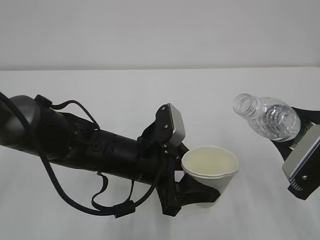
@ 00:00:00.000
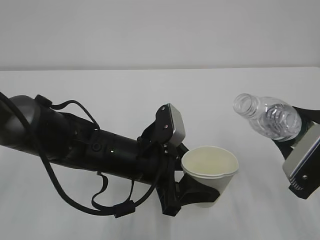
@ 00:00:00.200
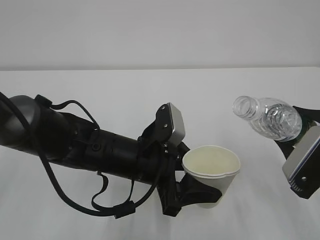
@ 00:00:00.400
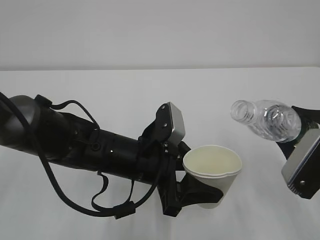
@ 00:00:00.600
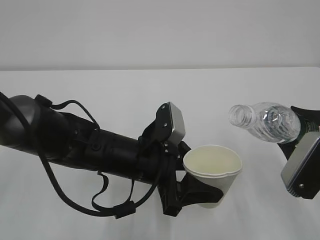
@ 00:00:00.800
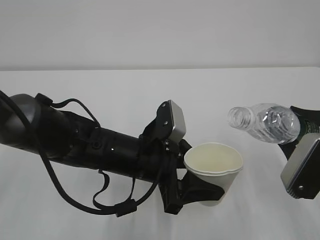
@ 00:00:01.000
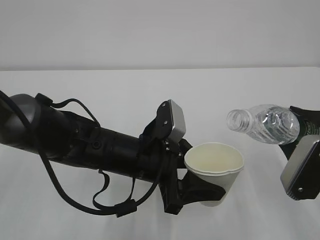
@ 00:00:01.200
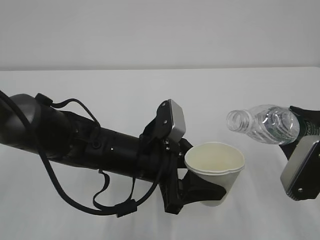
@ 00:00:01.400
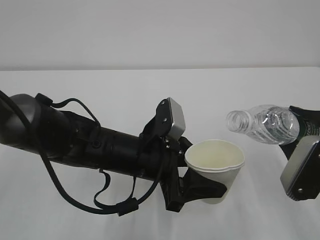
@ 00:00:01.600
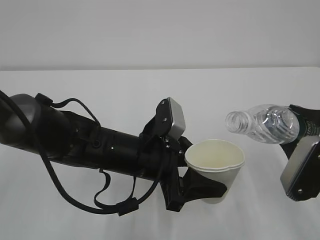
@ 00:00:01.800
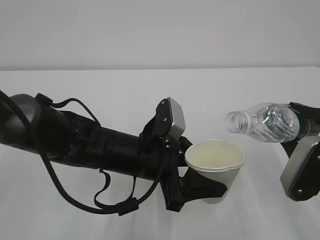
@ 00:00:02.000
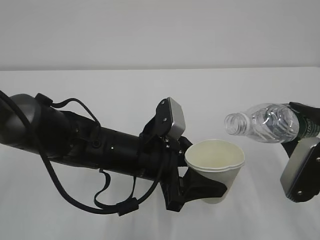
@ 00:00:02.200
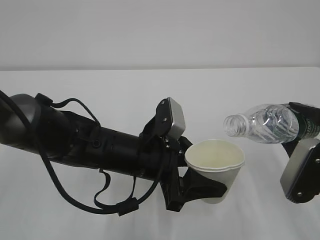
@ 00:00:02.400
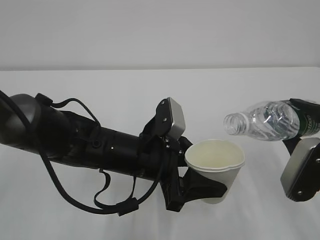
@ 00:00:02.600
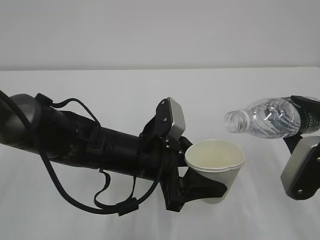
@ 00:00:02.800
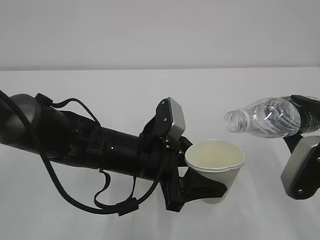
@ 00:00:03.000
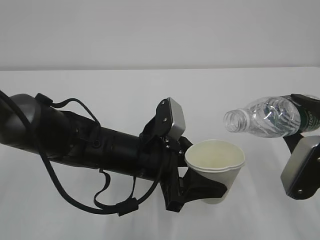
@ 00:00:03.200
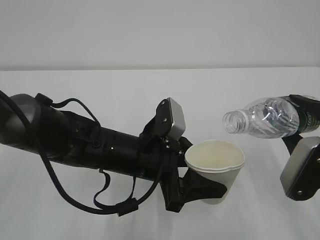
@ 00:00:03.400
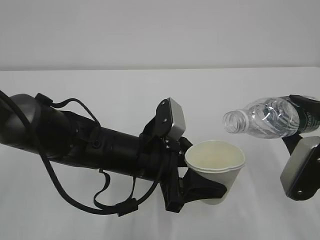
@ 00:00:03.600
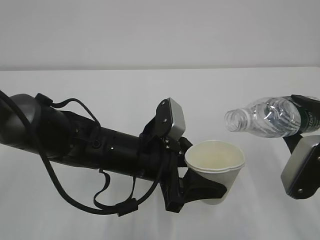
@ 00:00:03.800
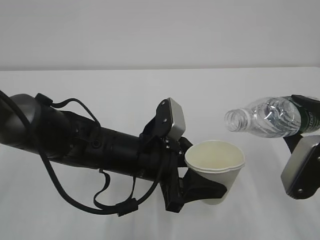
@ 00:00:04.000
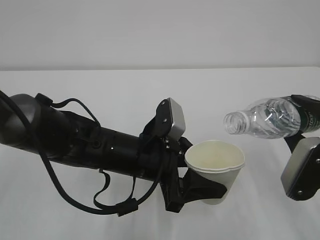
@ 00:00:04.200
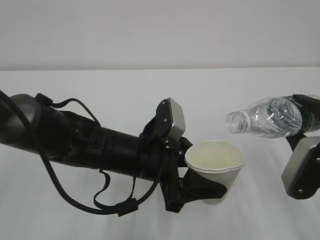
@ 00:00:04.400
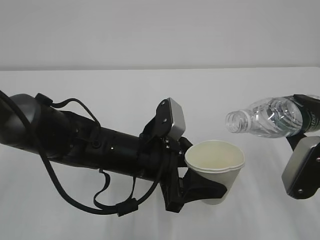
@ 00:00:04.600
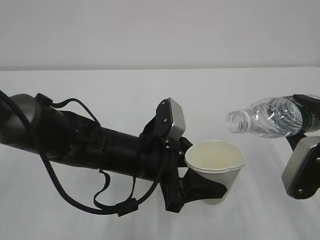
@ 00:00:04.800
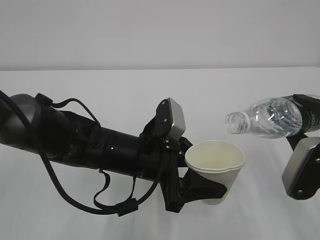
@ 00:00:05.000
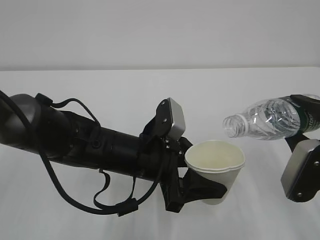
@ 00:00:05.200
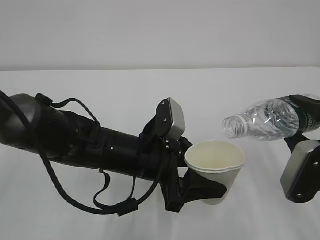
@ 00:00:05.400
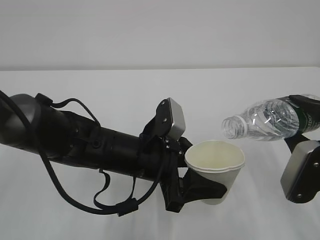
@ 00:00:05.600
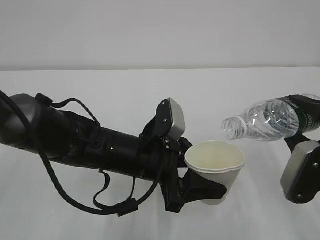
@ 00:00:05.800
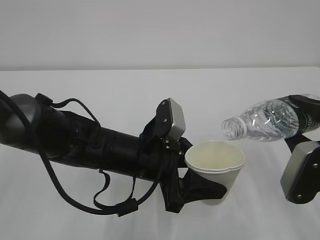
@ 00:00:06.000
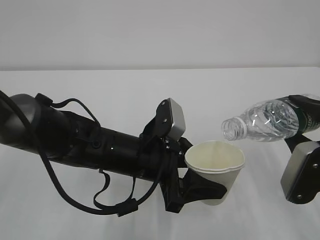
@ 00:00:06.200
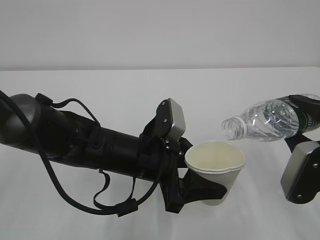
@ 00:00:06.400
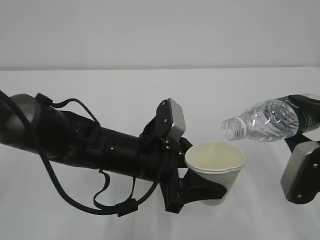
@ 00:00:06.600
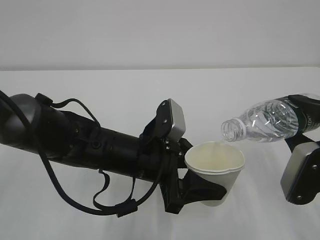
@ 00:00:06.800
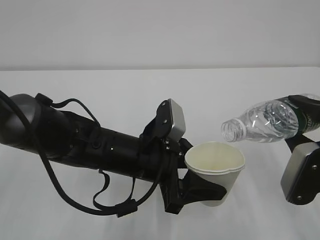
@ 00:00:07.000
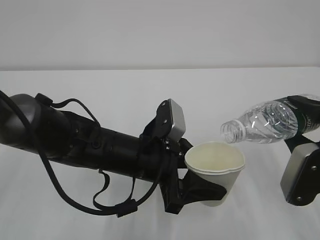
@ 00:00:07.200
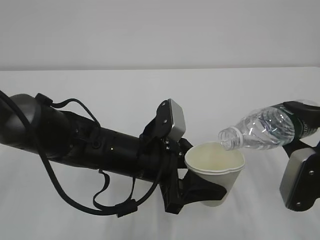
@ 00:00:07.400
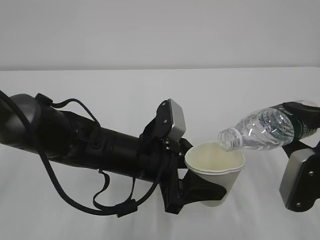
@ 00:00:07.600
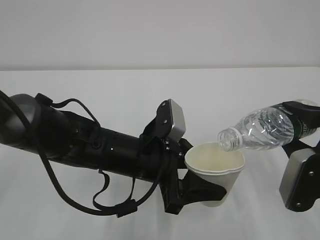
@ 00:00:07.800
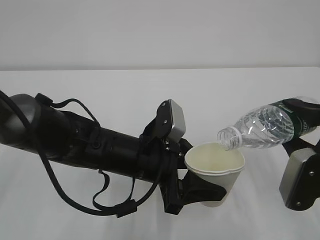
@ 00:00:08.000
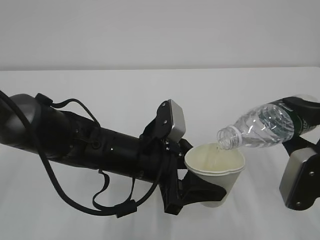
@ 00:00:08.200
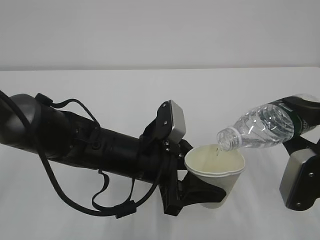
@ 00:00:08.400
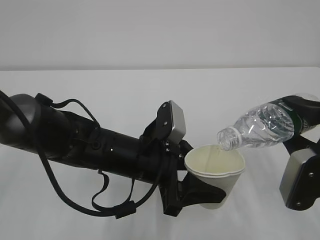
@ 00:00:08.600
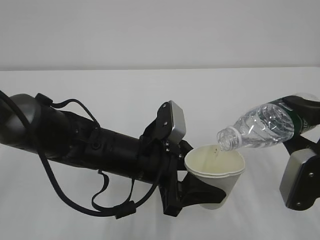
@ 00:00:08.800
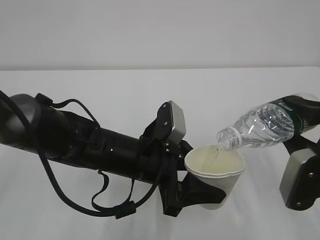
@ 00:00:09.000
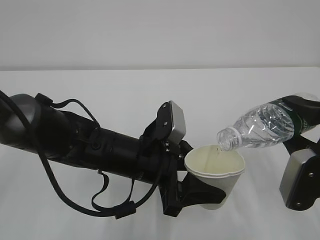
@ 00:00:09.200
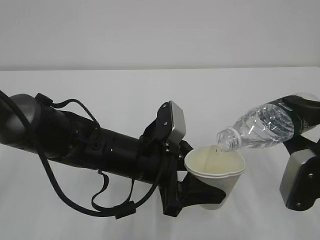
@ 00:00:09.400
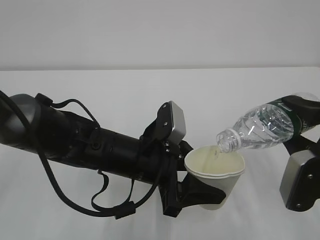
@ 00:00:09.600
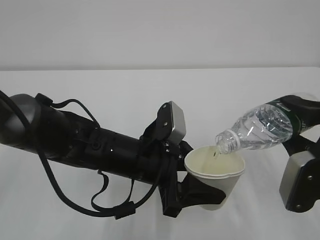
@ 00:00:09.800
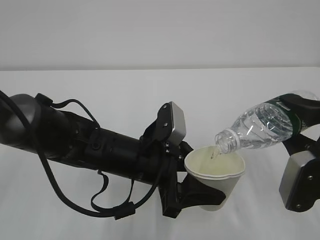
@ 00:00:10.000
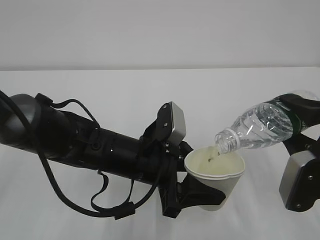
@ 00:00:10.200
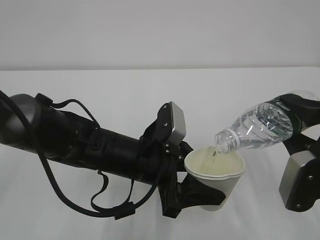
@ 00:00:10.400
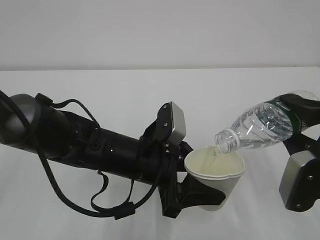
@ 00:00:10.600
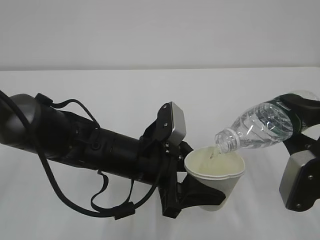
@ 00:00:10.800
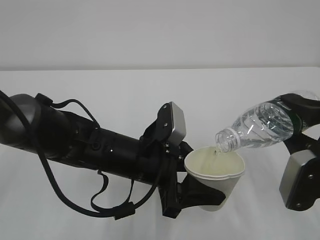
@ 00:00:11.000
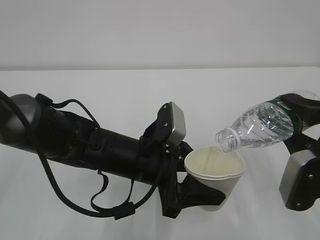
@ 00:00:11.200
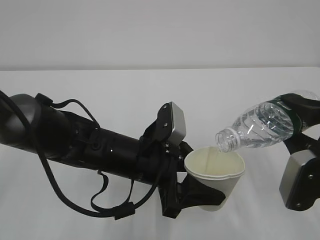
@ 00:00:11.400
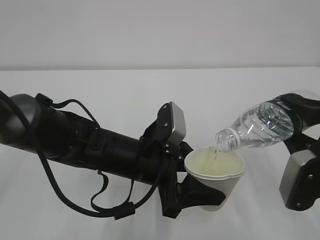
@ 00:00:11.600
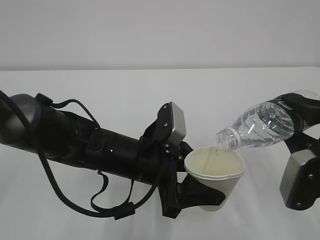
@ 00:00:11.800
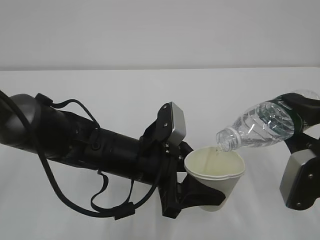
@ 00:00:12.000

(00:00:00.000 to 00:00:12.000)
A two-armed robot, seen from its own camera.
00:00:00.000 - 00:00:01.600: The grippers stay close to where they were, moving slightly.
00:00:01.600 - 00:00:03.000: The grippers make only small movements.
00:00:03.000 - 00:00:04.400: Both grippers stay put.
00:00:04.400 - 00:00:06.000: Both grippers stay put.
00:00:06.000 - 00:00:07.600: The two grippers keep their place.
00:00:07.600 - 00:00:09.000: The two grippers keep their place.
00:00:09.000 - 00:00:12.000: Neither gripper changes place.

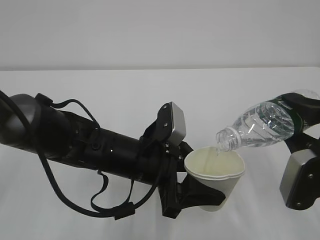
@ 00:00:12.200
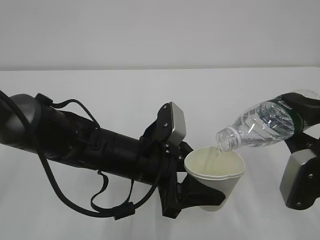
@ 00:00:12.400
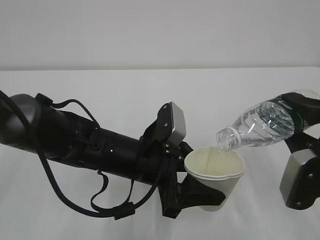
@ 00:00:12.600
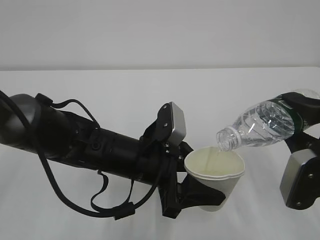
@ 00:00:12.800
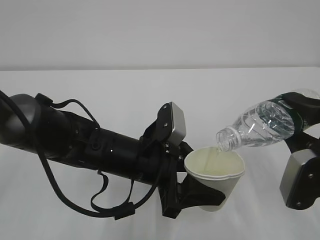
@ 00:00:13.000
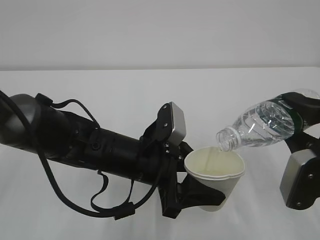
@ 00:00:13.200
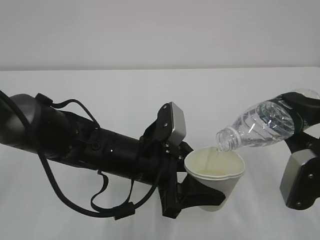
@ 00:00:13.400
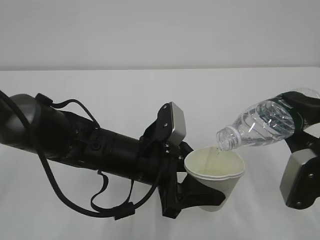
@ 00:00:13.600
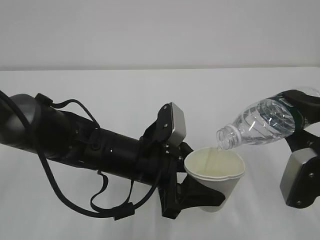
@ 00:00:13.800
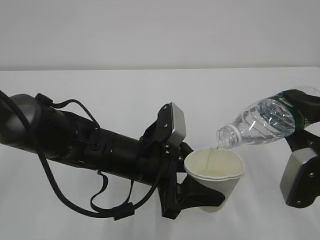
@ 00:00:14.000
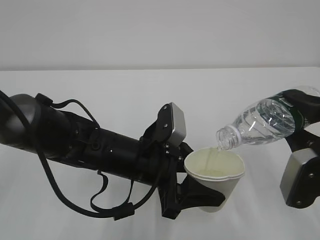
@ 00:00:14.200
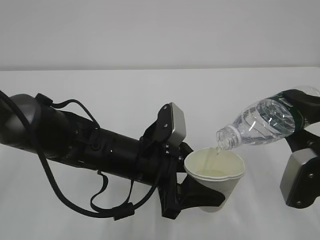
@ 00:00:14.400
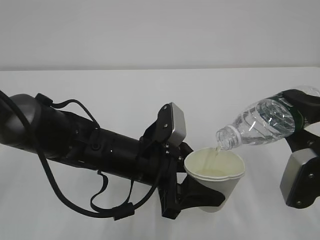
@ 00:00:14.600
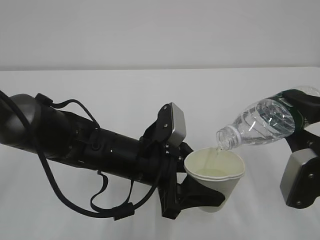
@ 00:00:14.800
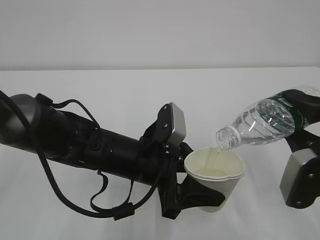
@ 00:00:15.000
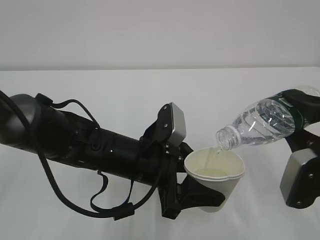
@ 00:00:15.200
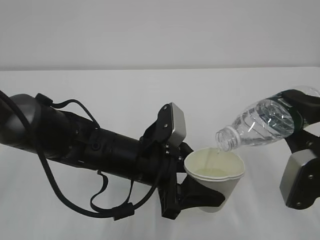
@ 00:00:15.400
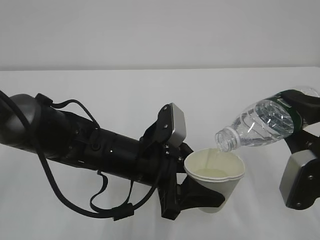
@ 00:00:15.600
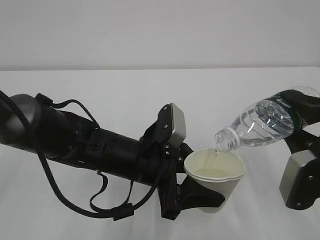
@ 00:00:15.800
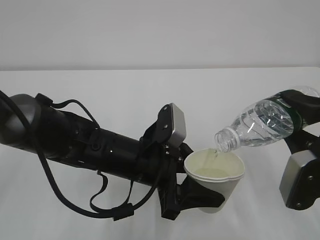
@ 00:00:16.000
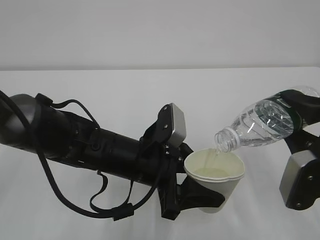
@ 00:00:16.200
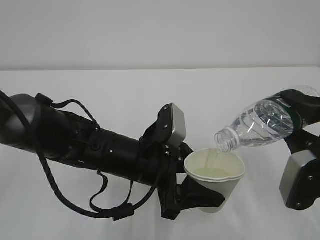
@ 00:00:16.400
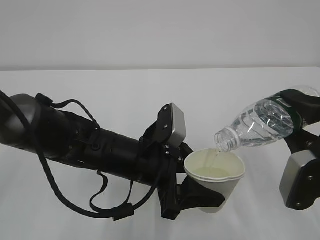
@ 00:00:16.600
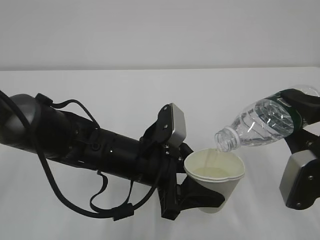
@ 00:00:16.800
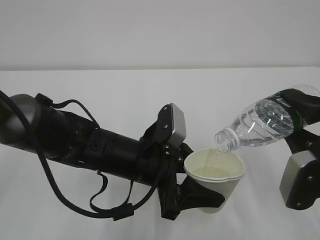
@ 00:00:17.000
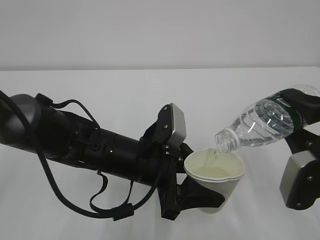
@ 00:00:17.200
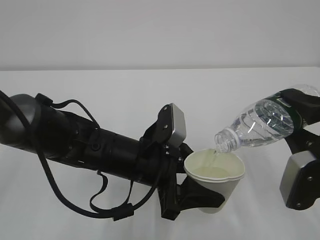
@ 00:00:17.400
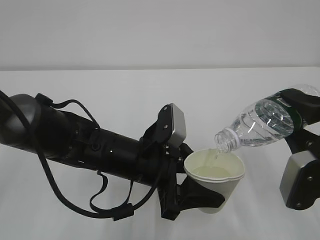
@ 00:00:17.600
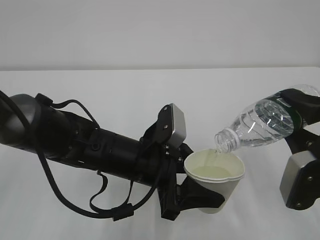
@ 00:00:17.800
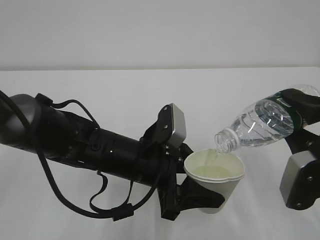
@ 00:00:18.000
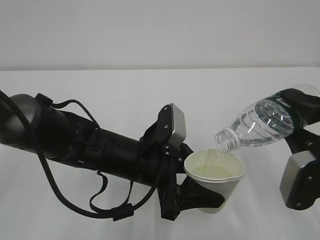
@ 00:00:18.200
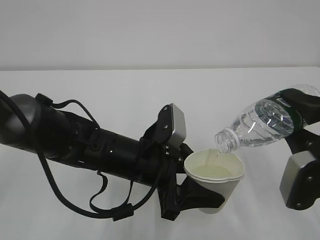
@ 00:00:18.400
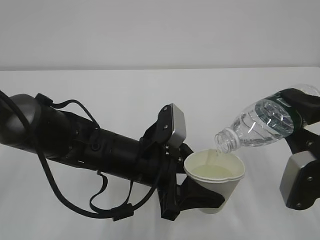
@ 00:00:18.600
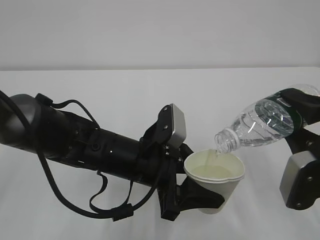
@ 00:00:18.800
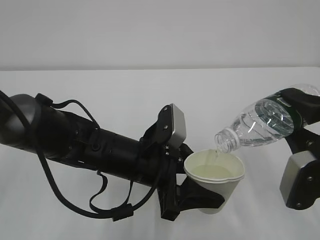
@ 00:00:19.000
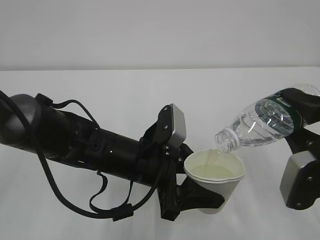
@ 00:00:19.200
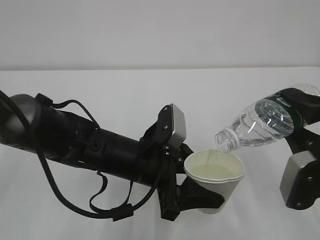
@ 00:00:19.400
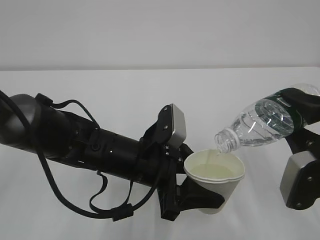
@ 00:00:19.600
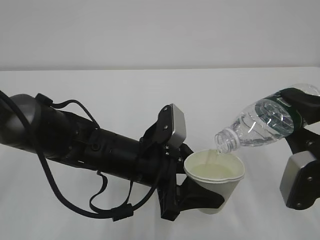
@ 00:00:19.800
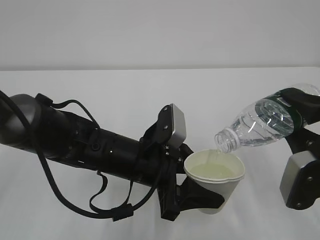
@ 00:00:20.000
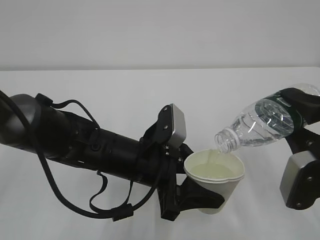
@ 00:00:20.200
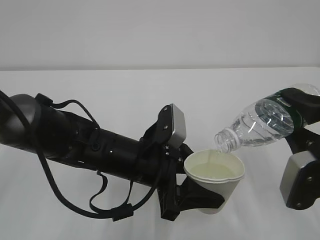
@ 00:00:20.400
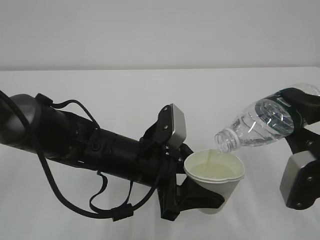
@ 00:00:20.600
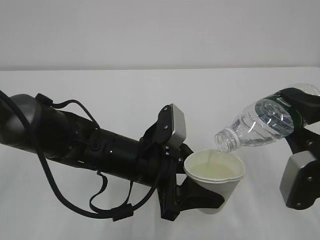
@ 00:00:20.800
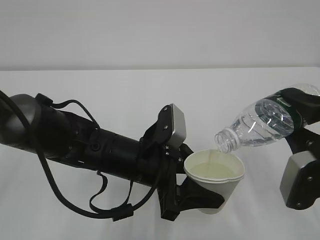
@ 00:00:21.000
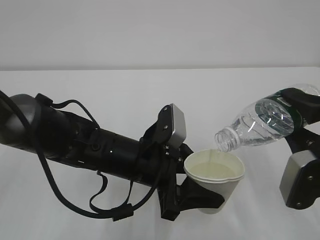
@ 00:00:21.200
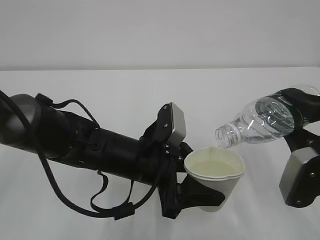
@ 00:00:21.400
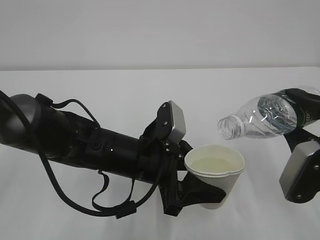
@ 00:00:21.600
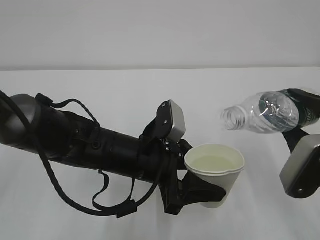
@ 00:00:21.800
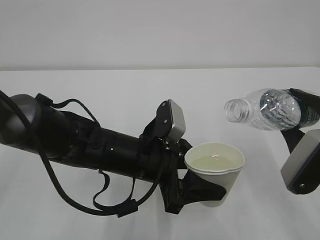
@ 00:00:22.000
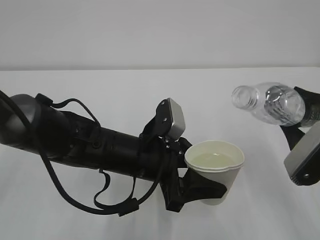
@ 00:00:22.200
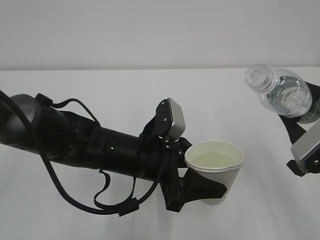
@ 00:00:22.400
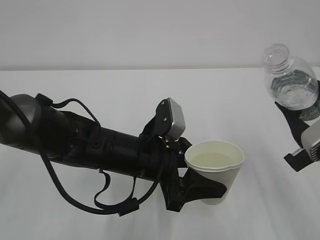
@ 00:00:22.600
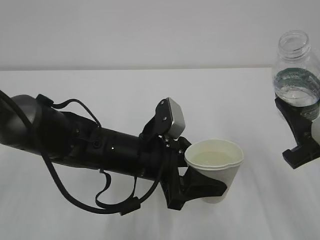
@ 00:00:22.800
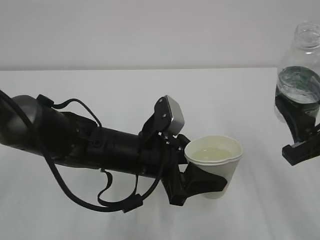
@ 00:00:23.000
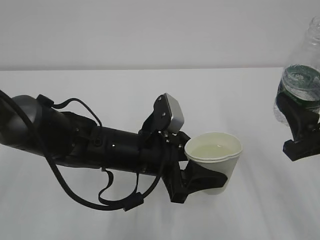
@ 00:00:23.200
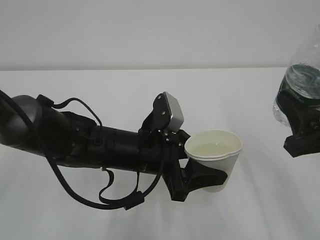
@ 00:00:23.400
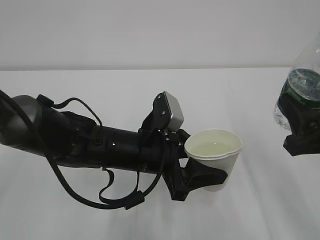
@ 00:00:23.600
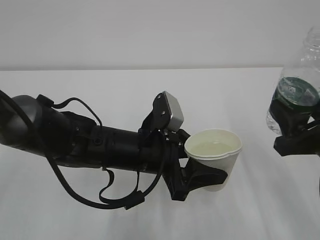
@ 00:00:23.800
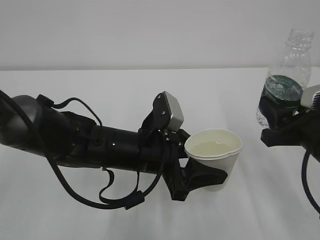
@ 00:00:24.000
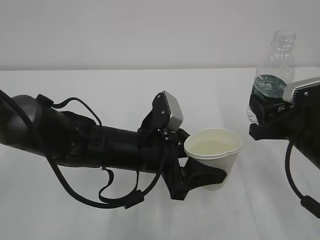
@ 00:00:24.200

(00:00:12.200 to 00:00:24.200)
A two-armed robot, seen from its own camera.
00:00:12.200 - 00:00:21.200: Both grippers stay about where they are.
00:00:22.600 - 00:00:24.200: The right gripper shifts about 5 cm forward.
